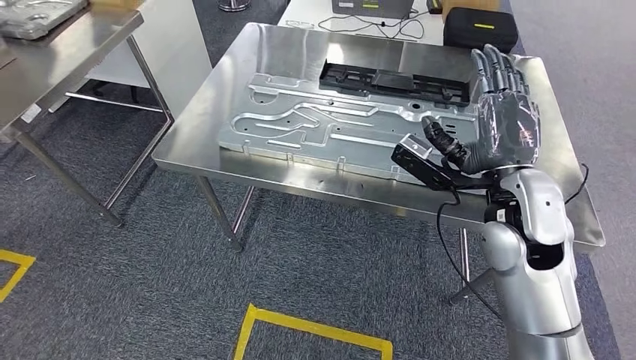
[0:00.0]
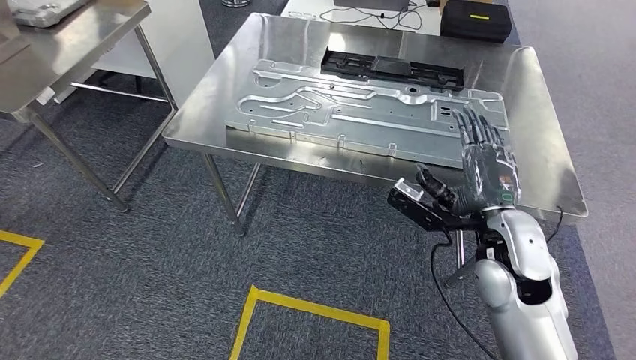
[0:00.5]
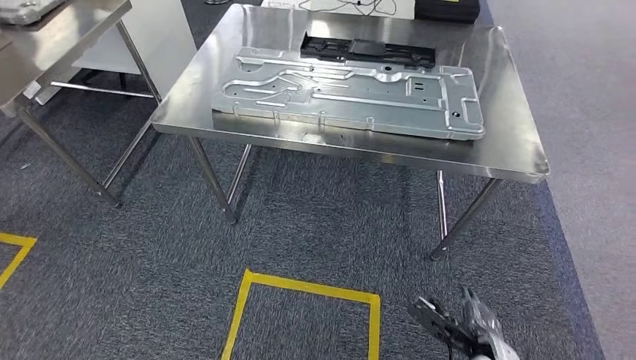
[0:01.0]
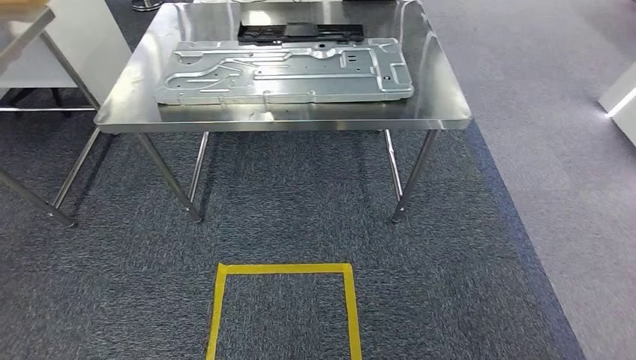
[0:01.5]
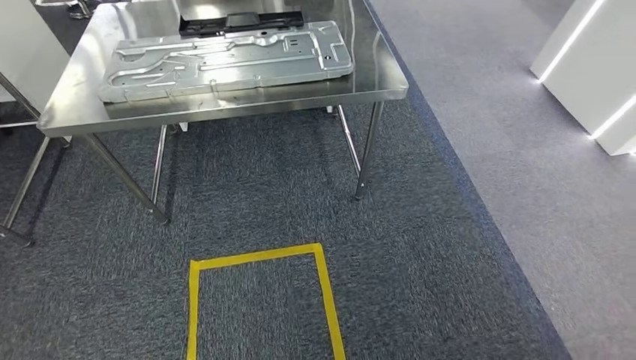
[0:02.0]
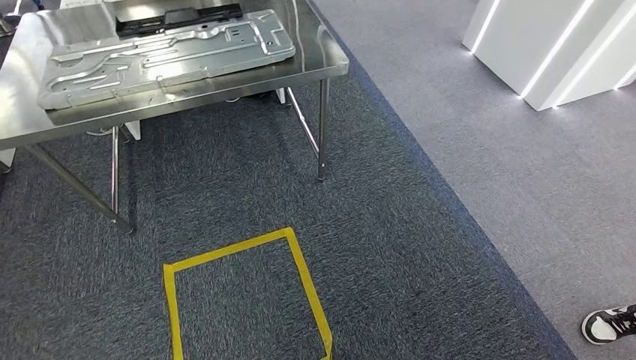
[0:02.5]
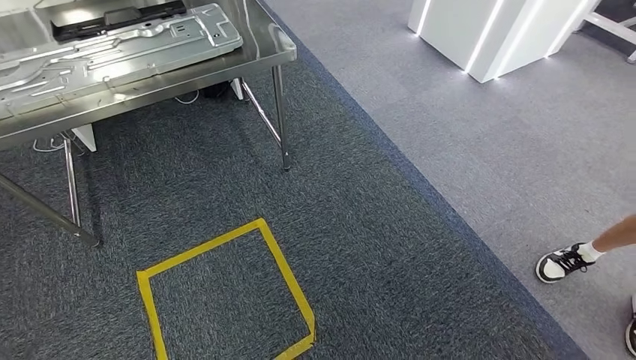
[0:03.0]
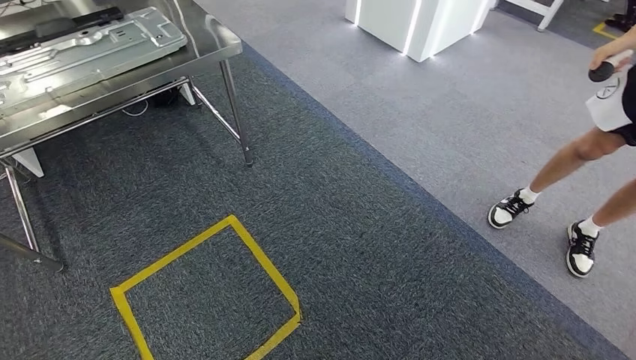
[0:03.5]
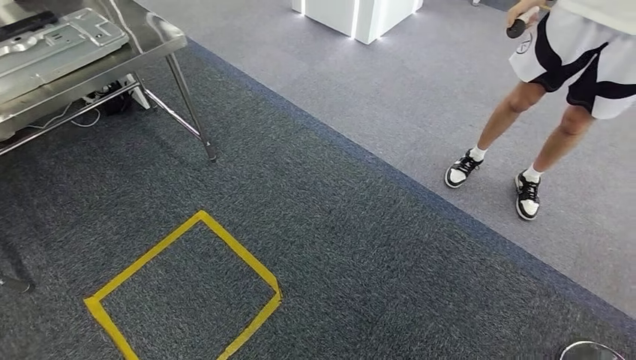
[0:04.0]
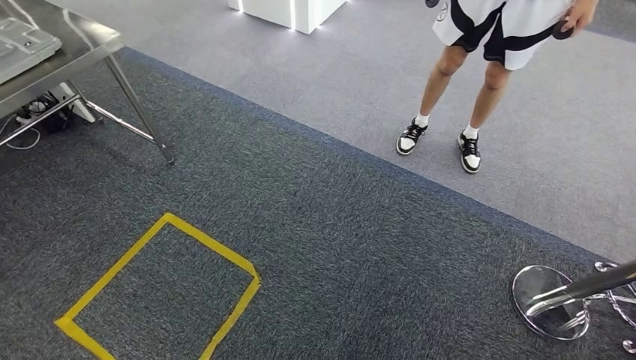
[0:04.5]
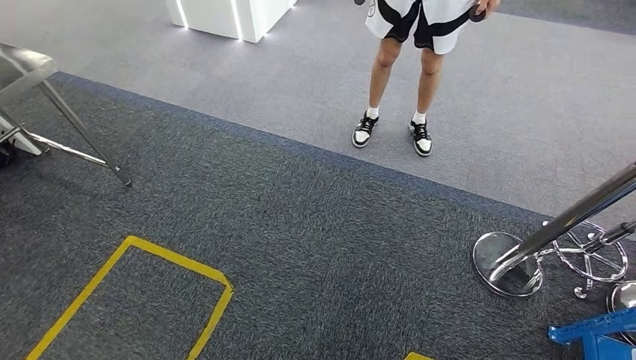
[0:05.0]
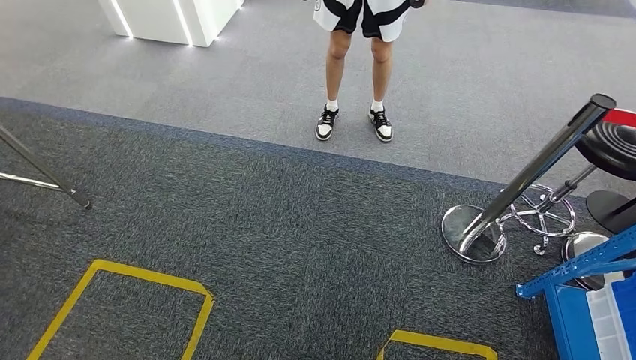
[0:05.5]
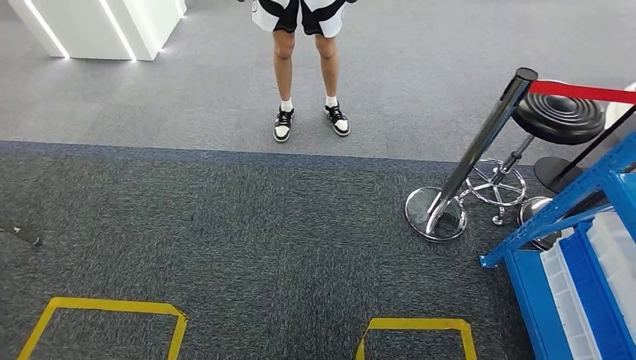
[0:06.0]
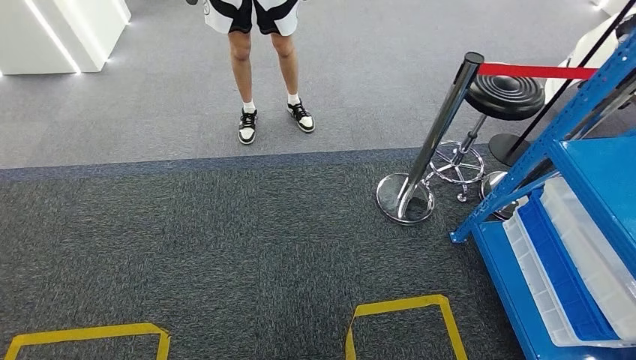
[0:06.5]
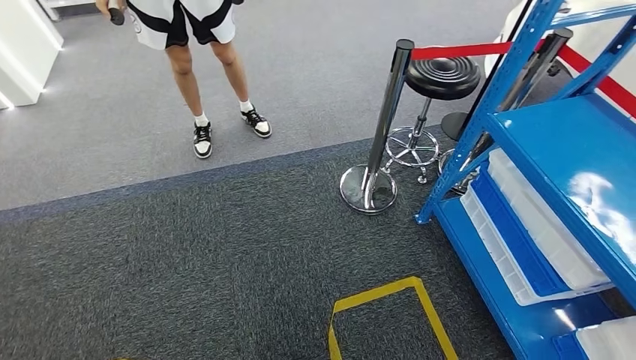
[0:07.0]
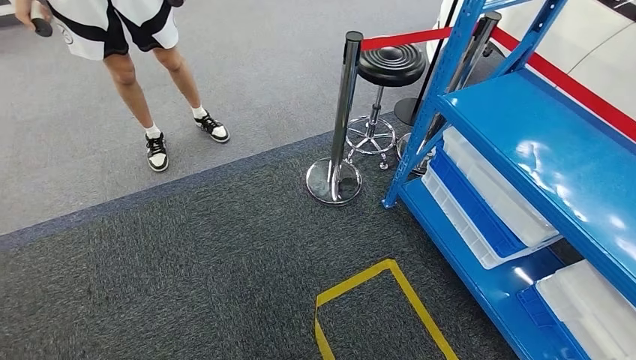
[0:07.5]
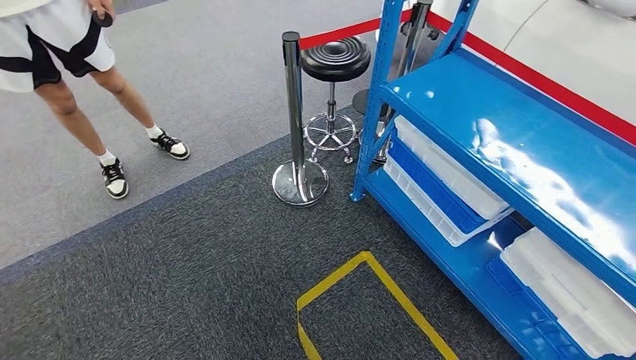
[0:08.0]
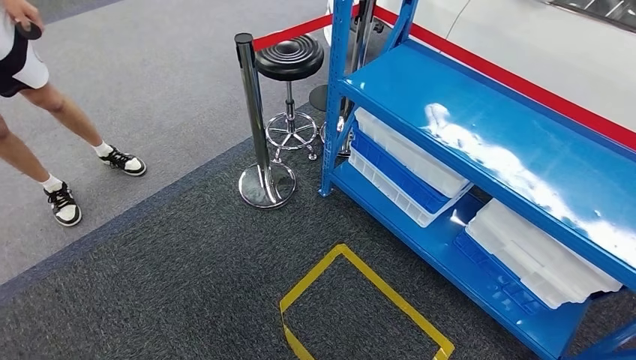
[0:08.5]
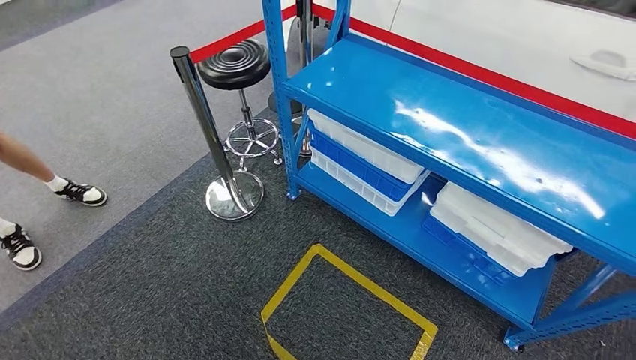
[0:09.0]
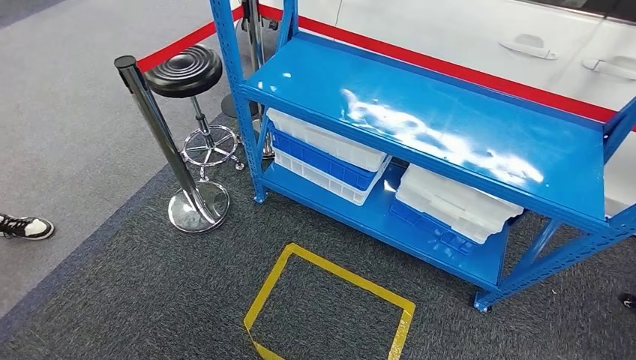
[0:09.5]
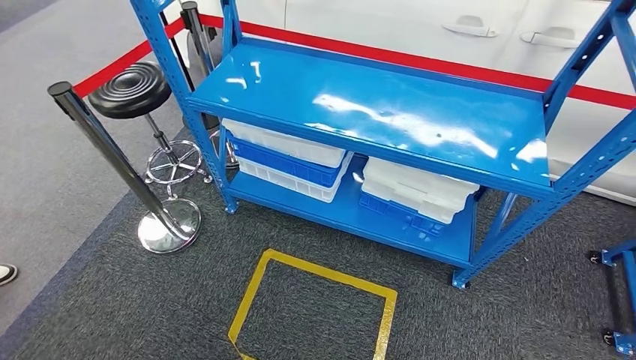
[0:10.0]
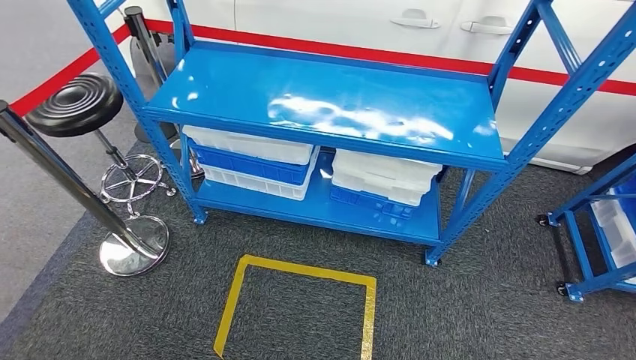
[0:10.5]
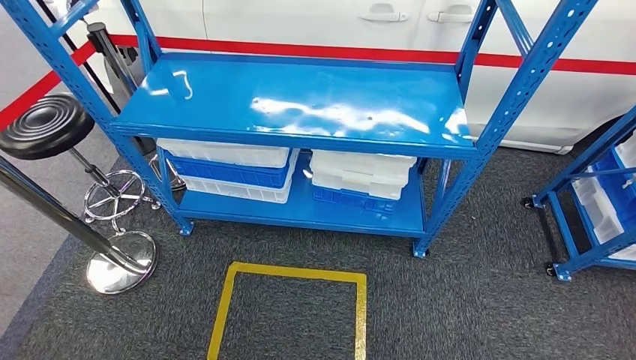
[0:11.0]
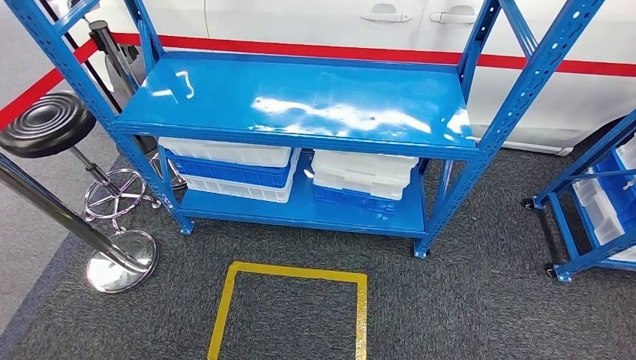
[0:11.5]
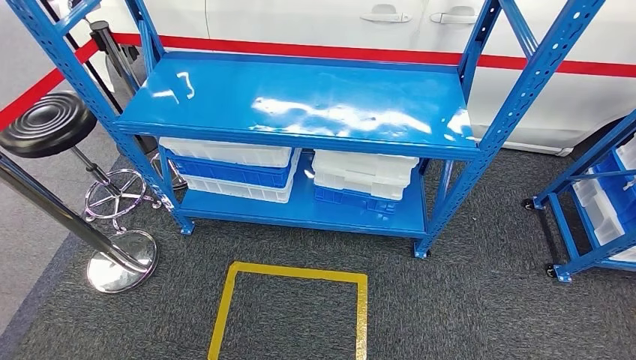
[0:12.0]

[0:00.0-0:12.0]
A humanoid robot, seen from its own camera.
Step, 0:00.0 to 0:02.0: Insert the large material into the corresponding slot on the workbench.
Step, 0:02.5 to 0:12.0: Move to the initial position of the shelf.
